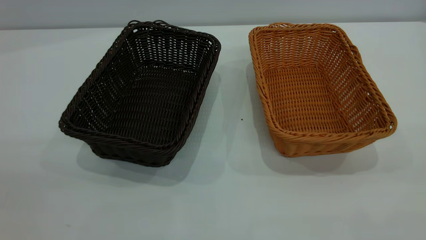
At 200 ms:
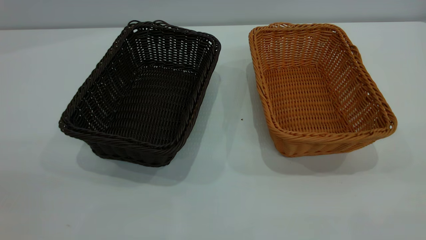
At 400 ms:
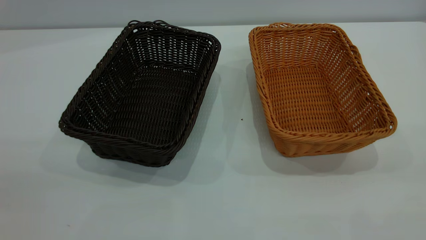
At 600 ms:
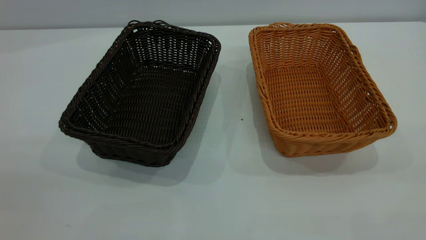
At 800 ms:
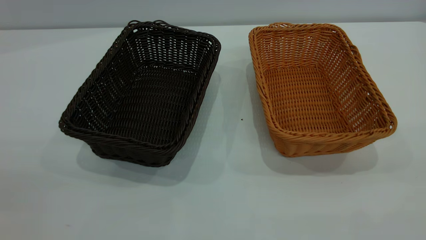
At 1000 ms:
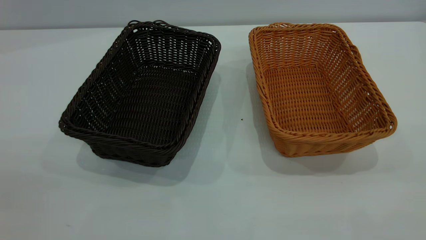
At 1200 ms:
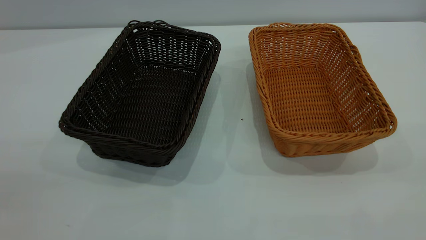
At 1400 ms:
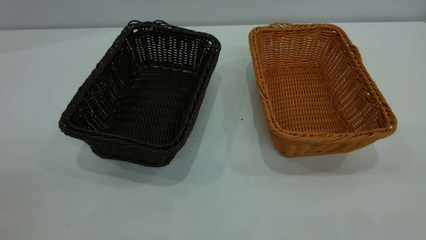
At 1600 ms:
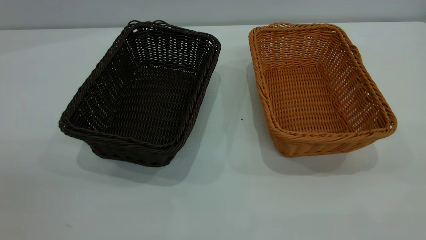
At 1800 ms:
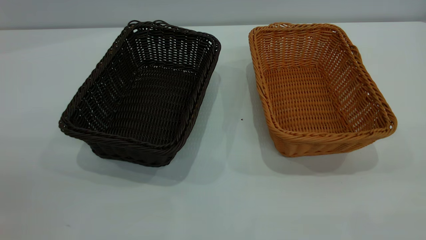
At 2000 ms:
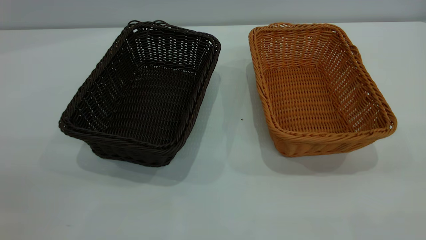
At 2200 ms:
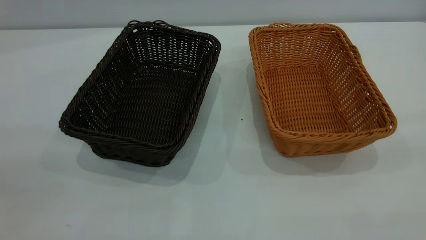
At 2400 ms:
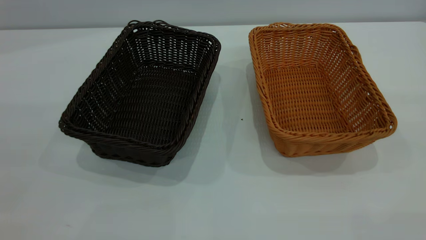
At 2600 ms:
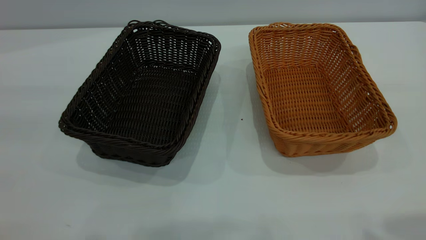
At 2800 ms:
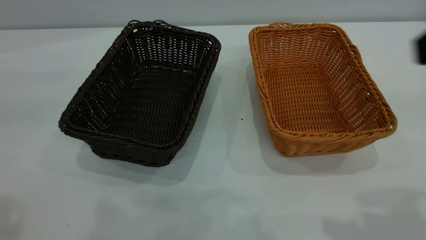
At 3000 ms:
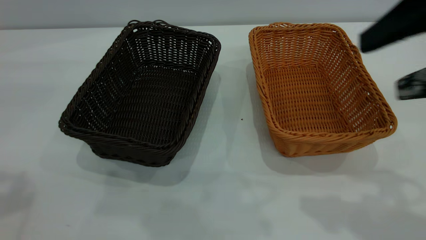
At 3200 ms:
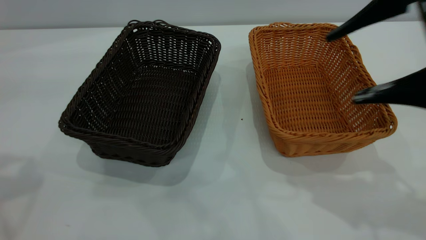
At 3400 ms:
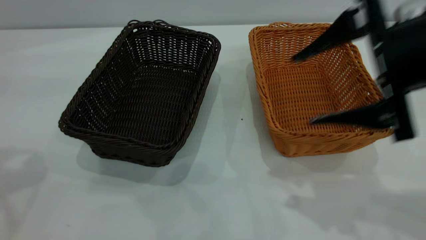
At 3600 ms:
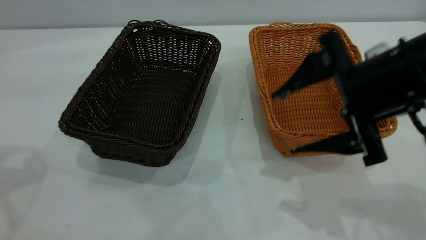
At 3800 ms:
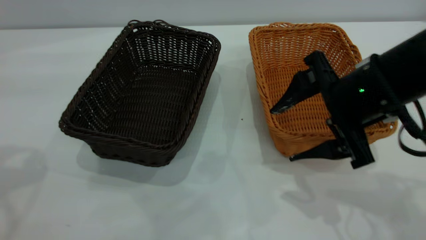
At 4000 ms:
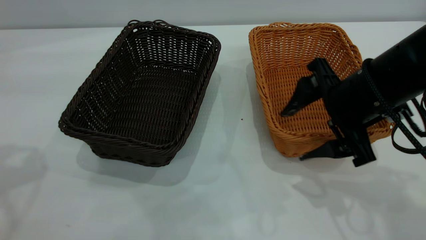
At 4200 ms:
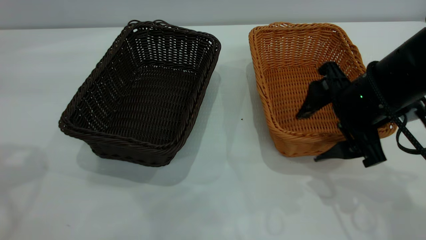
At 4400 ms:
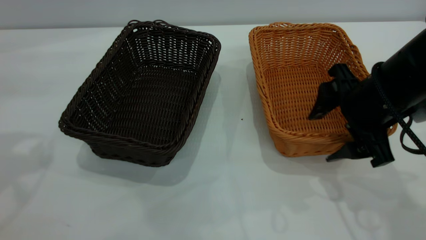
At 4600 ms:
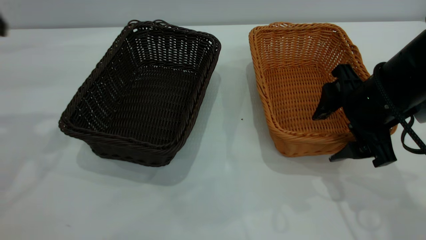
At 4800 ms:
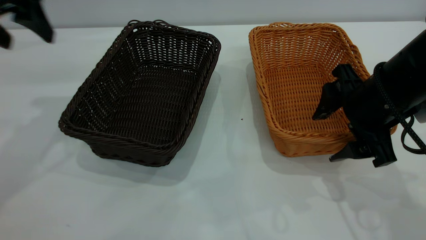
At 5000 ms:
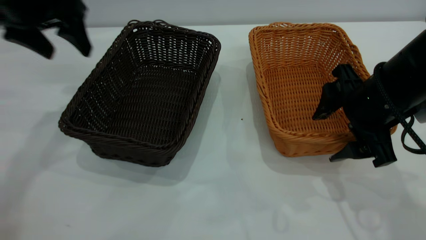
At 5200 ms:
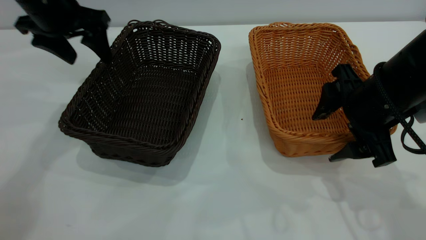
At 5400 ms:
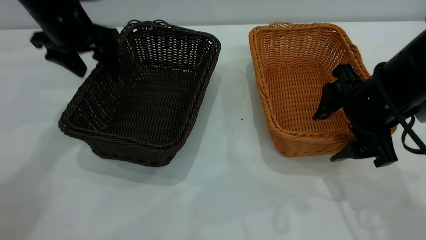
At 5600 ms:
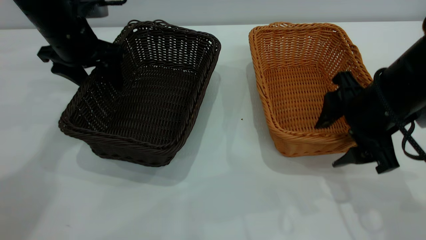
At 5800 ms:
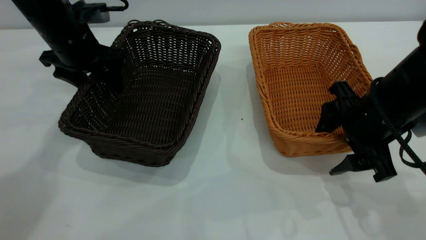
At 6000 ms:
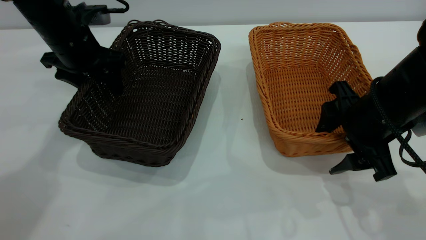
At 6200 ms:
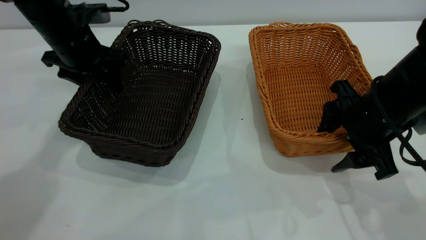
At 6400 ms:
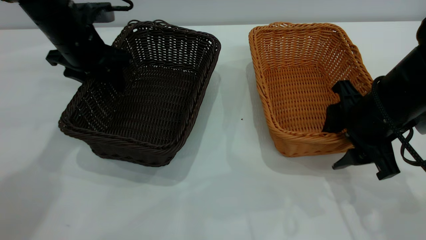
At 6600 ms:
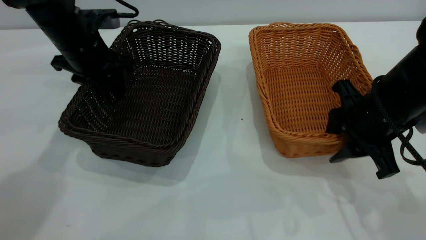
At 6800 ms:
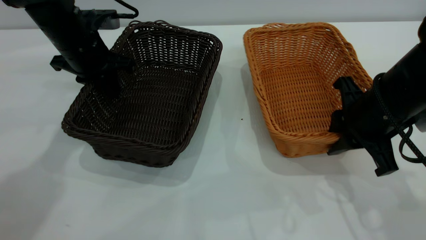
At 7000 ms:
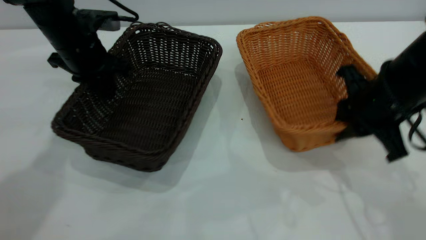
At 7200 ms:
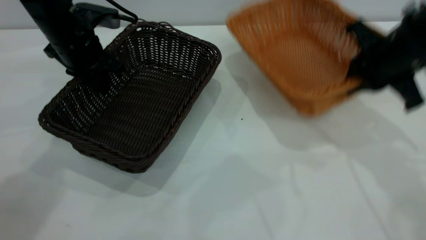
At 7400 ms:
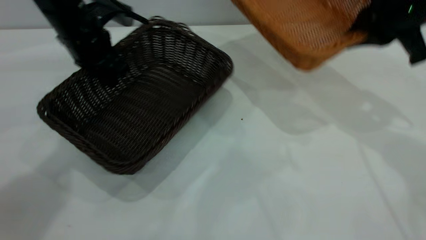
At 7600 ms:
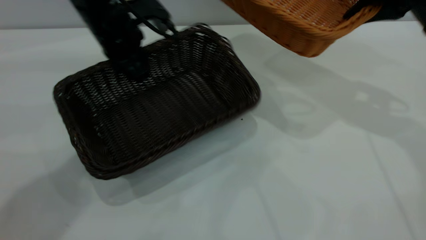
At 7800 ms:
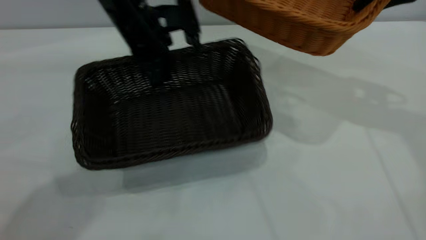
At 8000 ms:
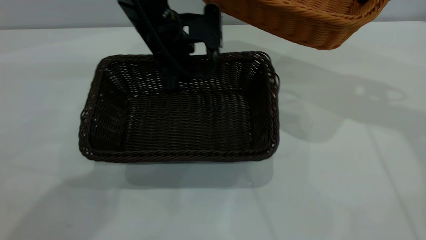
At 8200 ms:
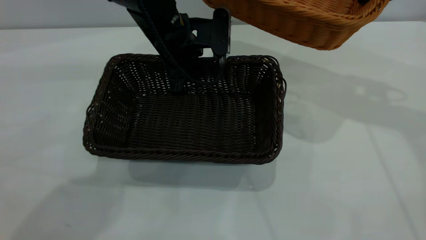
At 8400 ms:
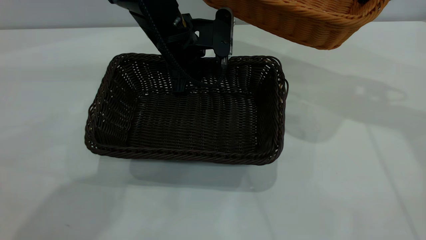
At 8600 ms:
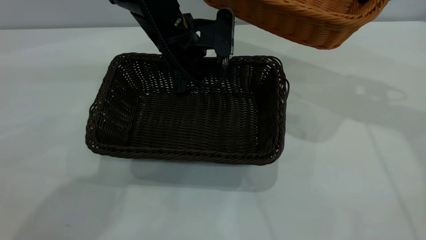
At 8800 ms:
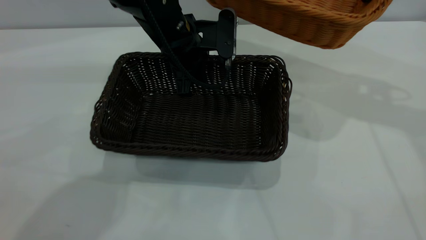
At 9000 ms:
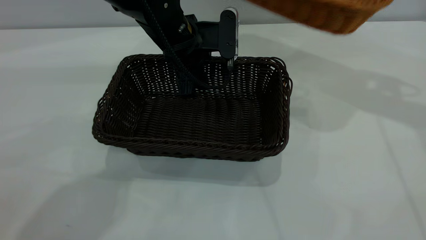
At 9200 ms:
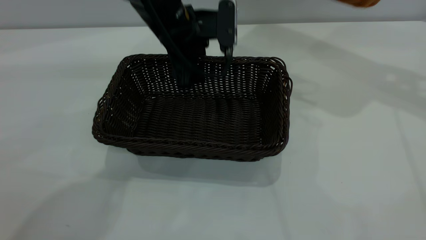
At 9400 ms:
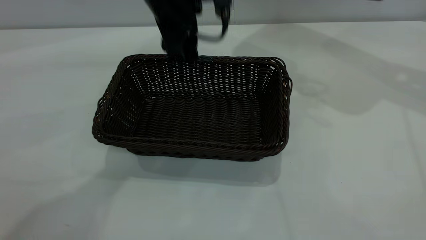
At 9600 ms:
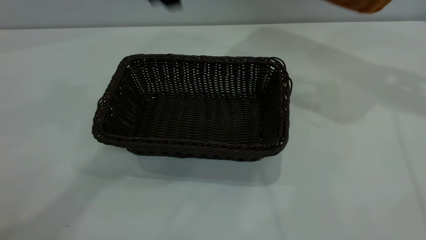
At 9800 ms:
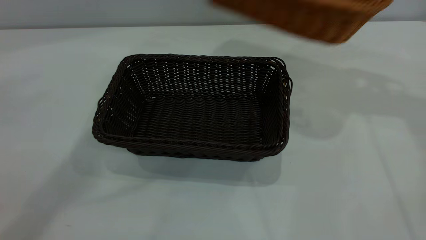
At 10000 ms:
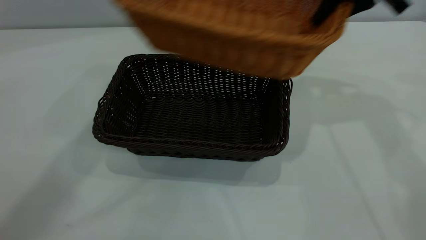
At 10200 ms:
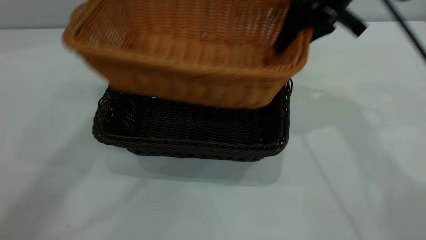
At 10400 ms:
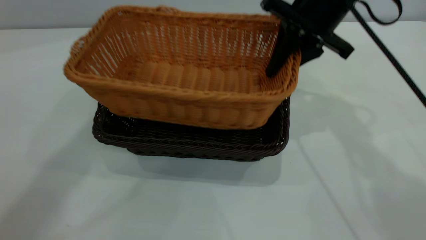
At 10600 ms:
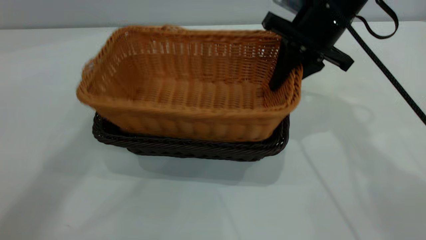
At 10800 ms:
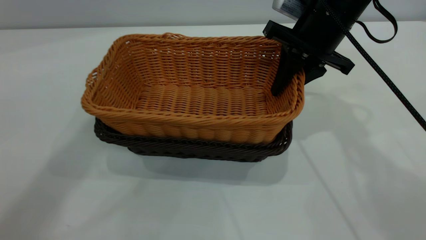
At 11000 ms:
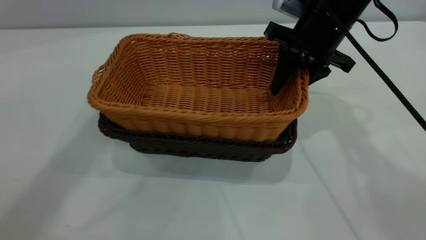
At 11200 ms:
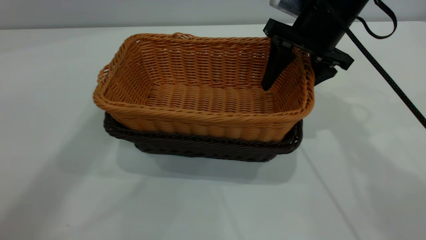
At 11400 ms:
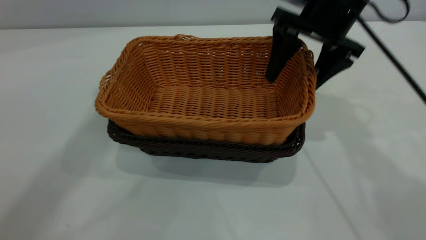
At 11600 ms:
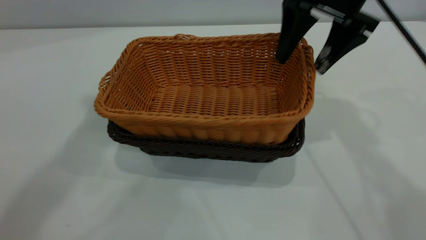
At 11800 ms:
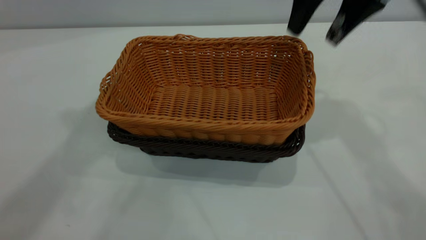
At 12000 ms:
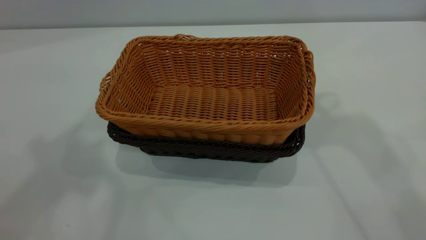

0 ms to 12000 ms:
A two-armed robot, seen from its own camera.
Task of the whole recording: the left gripper grasp the black basket and place it in the center of the table, the right gripper grasp the brown basket and place it inside the black one.
Step, 0 ms to 7400 ms: Pick up the light basket with the right gripper.
Step, 7600 ms to 9400 ms: Move the dark basket to the center of view.
Step, 9600 ms to 11800 ms: Place the light basket on the dark basket.
0 ms to 1600 ms: Both grippers stay about where they are.
1600 ms to 3000 ms: The right gripper heads forward, covering approximately 20 cm, and opens its fingers.
3000 ms to 4400 ms: The right gripper is displaced downward and forward by some 15 cm.
4400 ms to 6000 ms: The left gripper shifts roughly 25 cm downward, forward and to the right.
6000 ms to 7600 ms: The left gripper goes about 10 cm to the right, and closes. The right gripper travels upward, forward and to the right by some 20 cm, and closes its fingers.
7600 ms to 9000 ms: The right gripper ends up about 5 cm from where it was. The left gripper shifts approximately 10 cm to the right, and opens its fingers.
9000 ms to 10400 ms: The right gripper heads to the left and downward, covering some 20 cm. Meanwhile the left gripper travels upward by some 35 cm.
10400 ms to 12000 ms: The left gripper goes approximately 15 cm backward, upward and to the left. The right gripper goes approximately 20 cm upward, and opens.

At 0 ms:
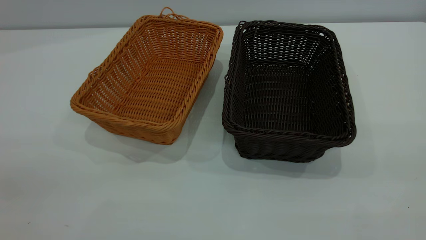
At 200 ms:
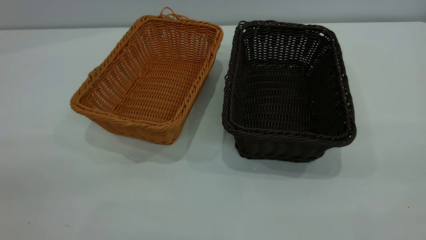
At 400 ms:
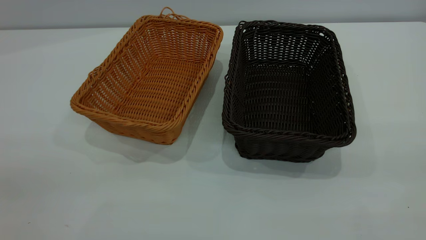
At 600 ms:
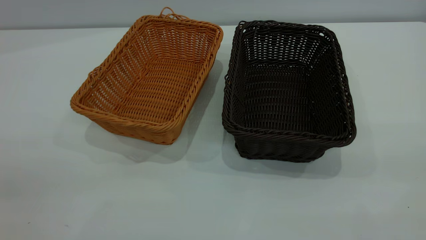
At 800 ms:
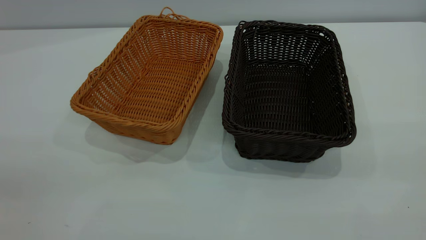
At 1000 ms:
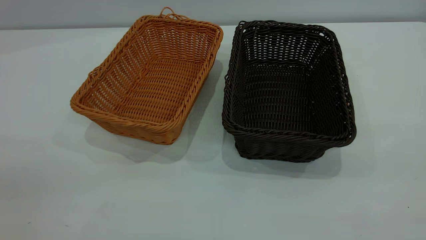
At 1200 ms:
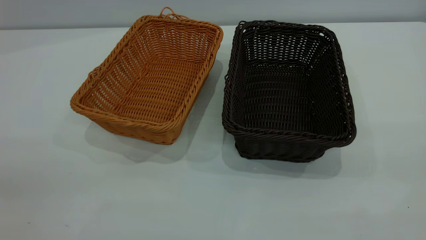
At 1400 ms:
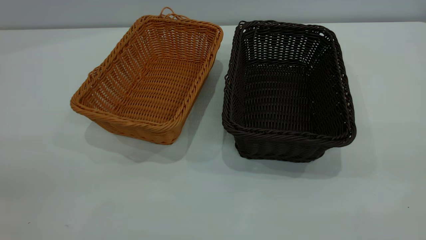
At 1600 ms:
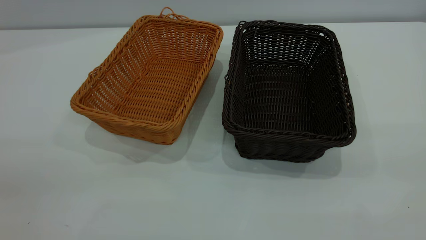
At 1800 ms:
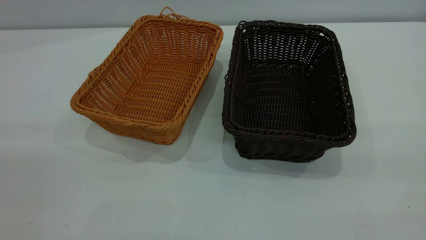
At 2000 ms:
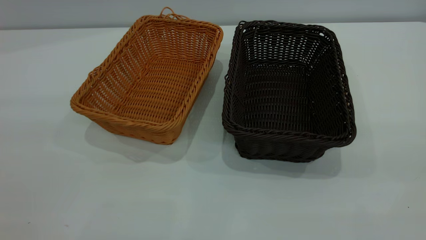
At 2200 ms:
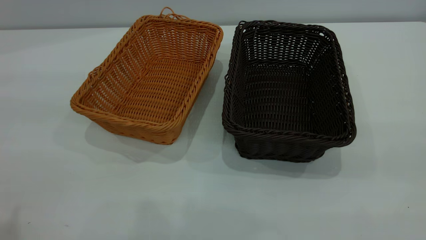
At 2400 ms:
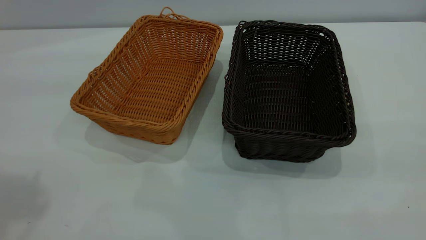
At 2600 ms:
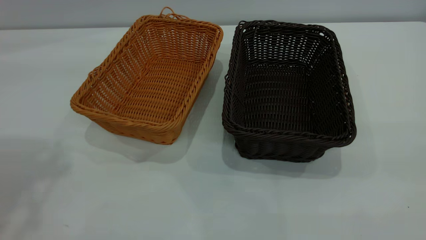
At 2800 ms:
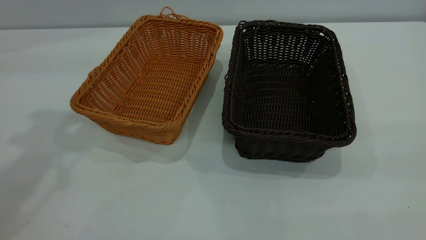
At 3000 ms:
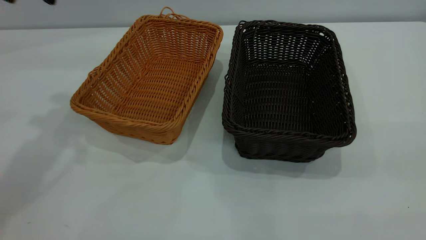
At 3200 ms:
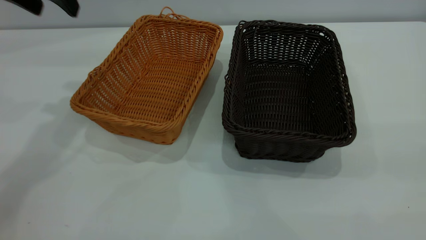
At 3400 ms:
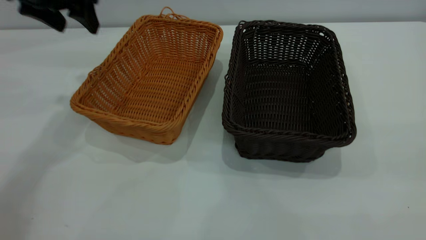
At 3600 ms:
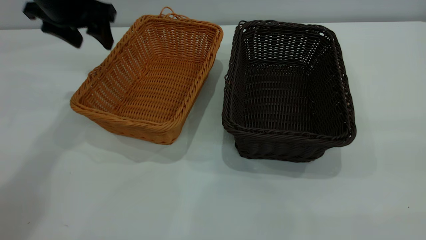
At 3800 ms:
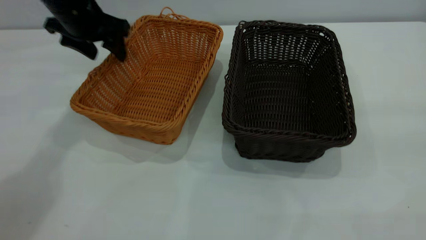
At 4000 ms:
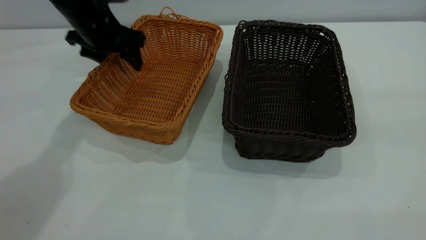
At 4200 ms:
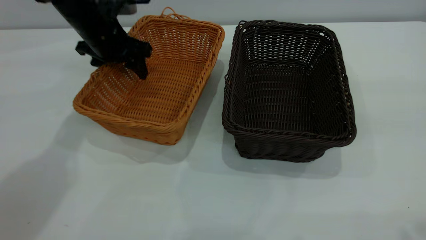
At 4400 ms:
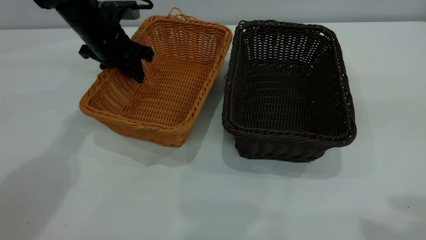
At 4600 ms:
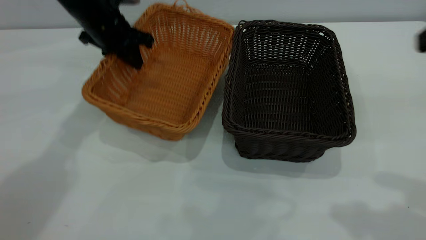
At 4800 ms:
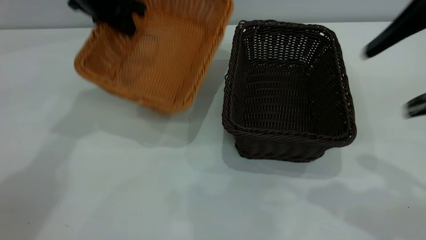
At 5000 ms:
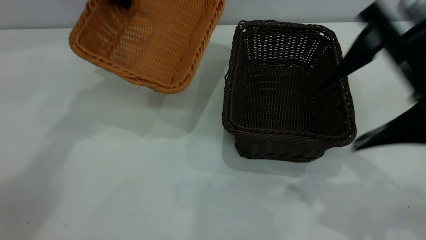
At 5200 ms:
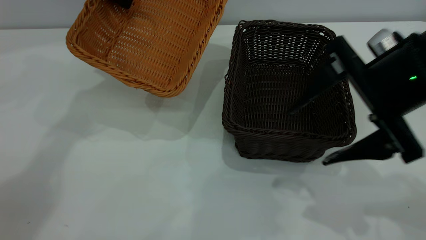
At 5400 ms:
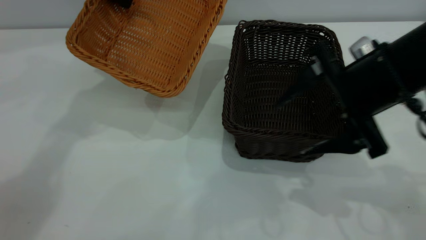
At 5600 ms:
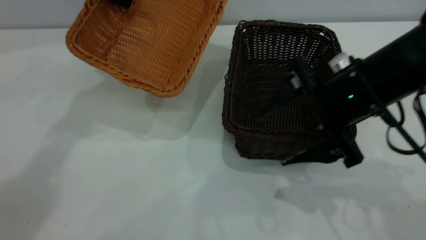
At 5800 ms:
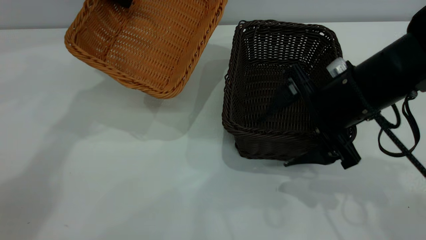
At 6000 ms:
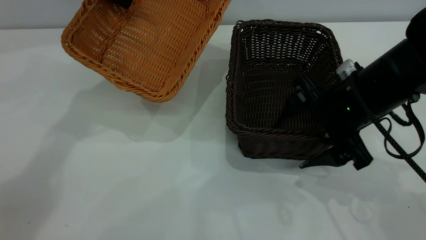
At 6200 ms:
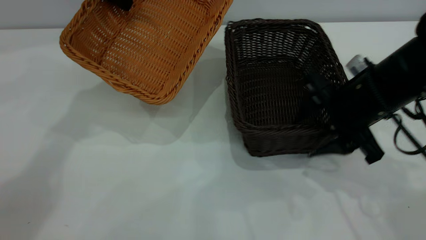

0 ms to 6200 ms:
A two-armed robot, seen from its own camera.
Task of the whole recording: the left gripper grasp the brown basket and place it in the center of the table, the right gripper grasp the black basket and place it inside the brown one.
0 ms to 1600 ms: Neither gripper changes place.
1600 ms to 3200 ms: The left gripper heads forward, covering approximately 40 cm.
3200 ms to 4600 ms: The left gripper goes some 15 cm downward, forward and to the right, and closes its fingers, while the right gripper moves forward, some 20 cm.
4600 ms to 6200 ms: The left gripper goes some 10 cm upward, while the right gripper goes roughly 25 cm downward and forward, and closes.
